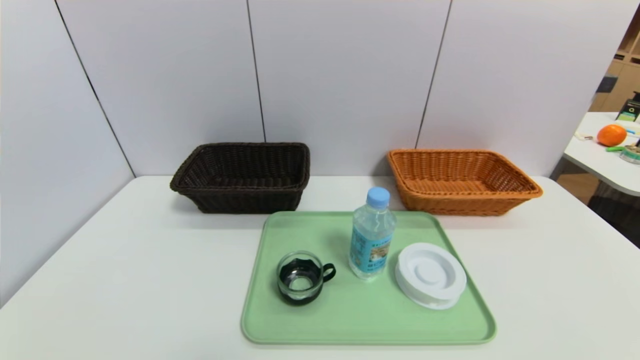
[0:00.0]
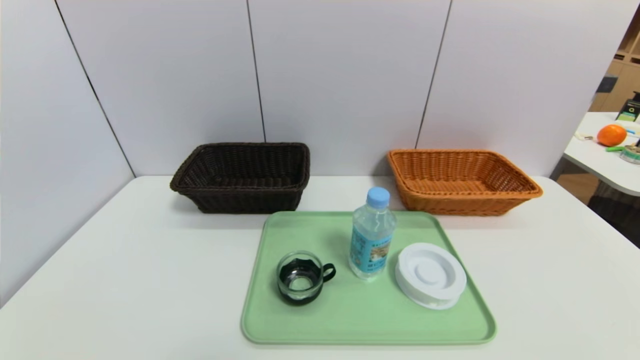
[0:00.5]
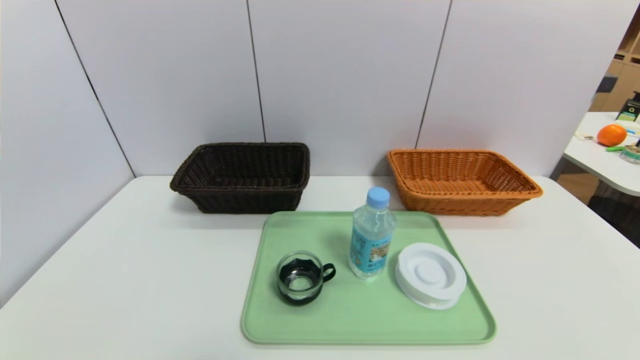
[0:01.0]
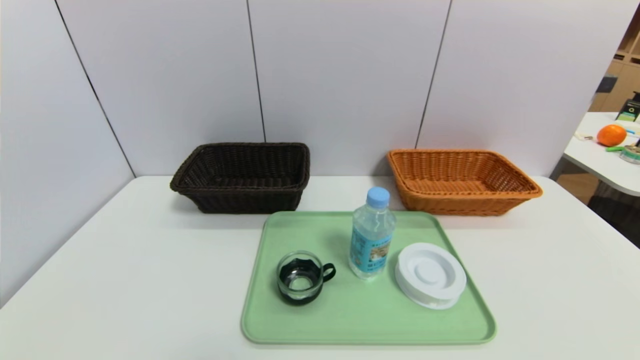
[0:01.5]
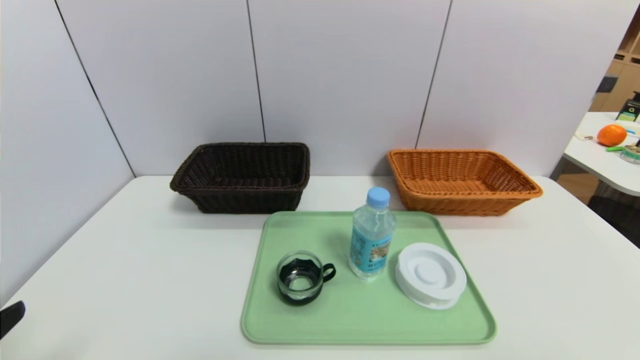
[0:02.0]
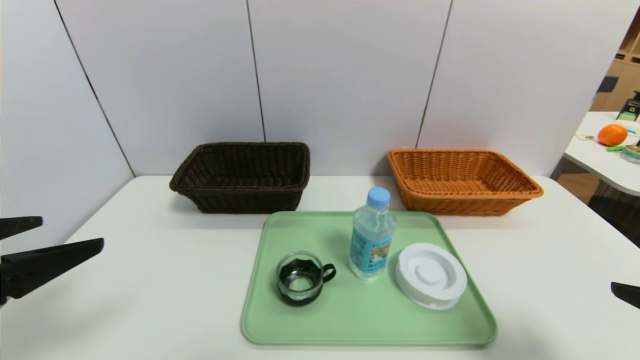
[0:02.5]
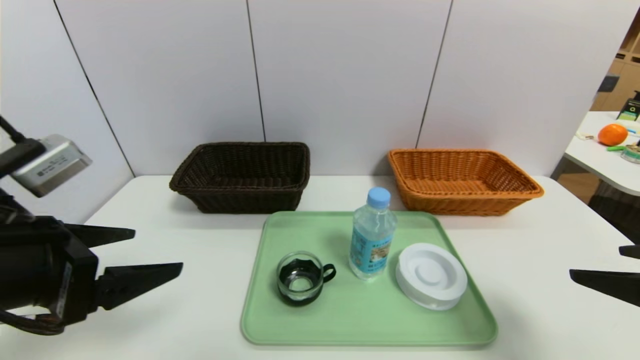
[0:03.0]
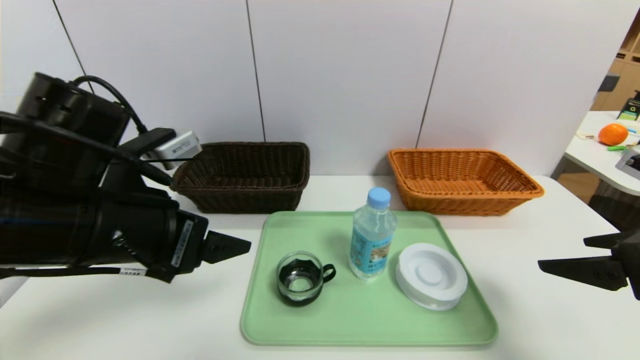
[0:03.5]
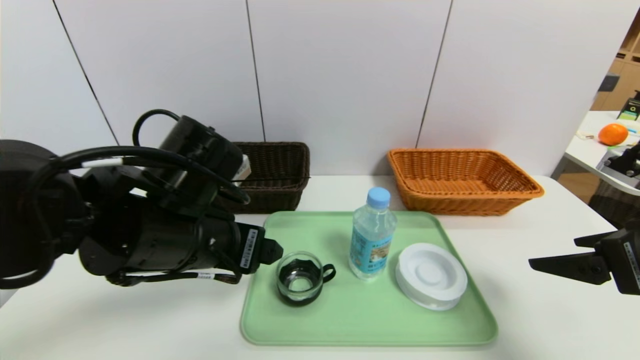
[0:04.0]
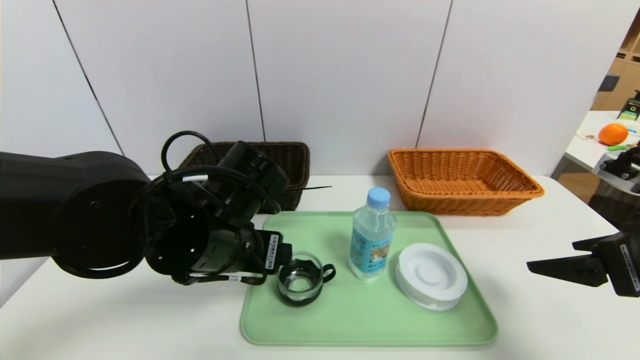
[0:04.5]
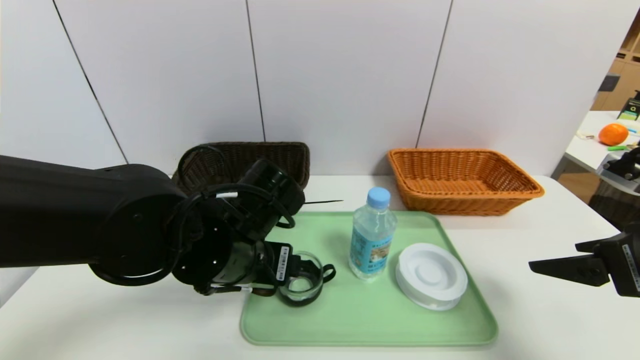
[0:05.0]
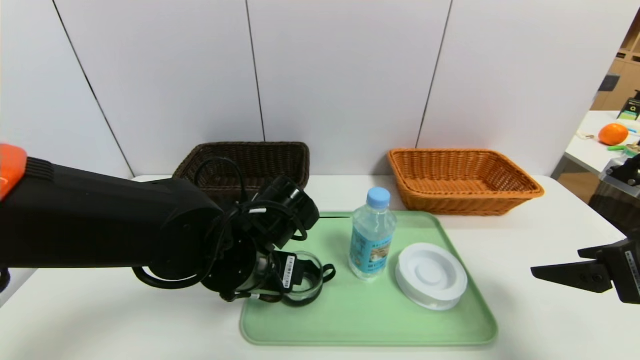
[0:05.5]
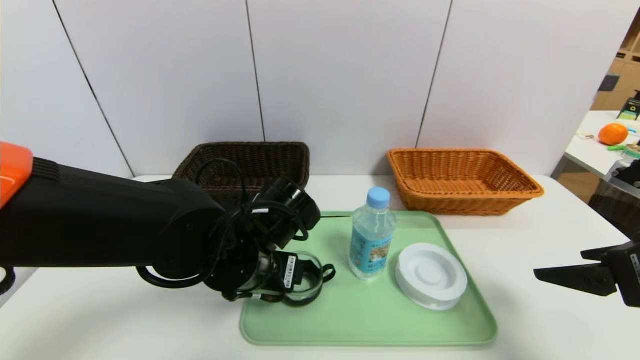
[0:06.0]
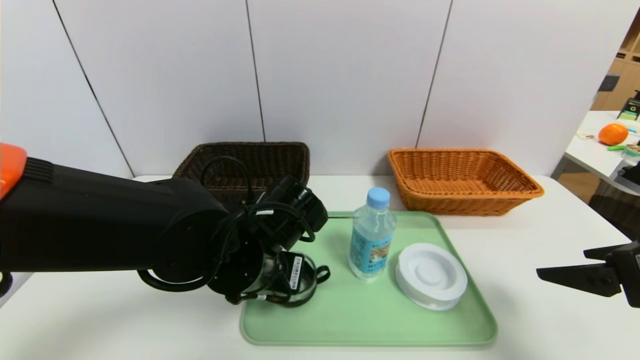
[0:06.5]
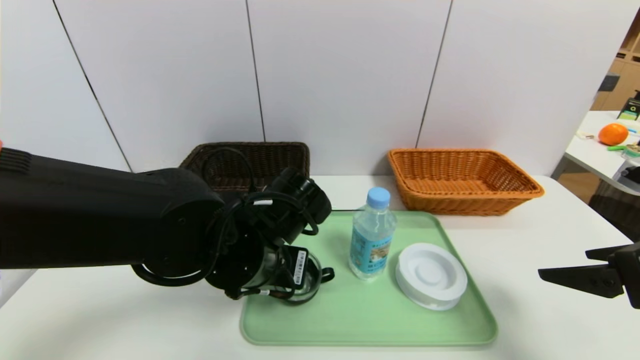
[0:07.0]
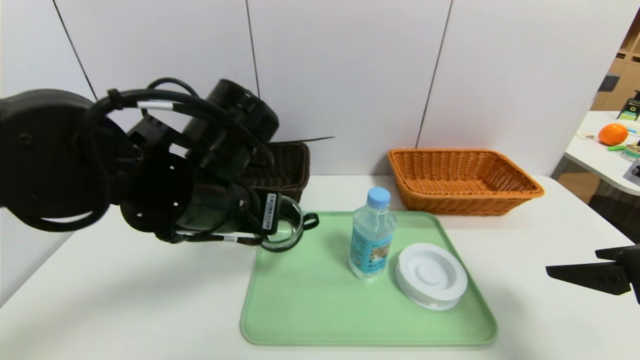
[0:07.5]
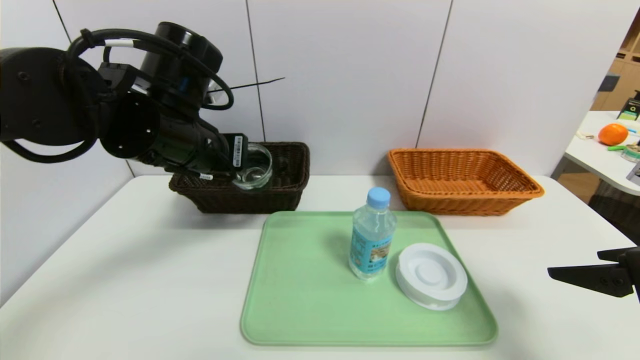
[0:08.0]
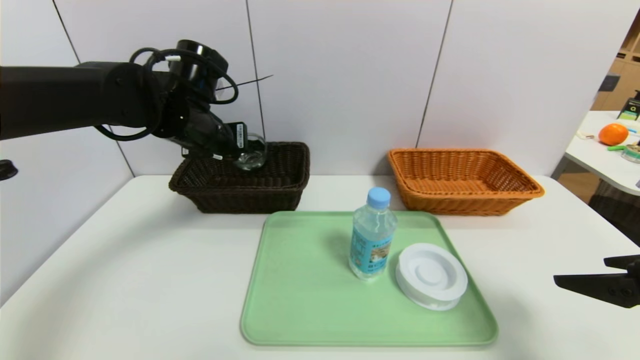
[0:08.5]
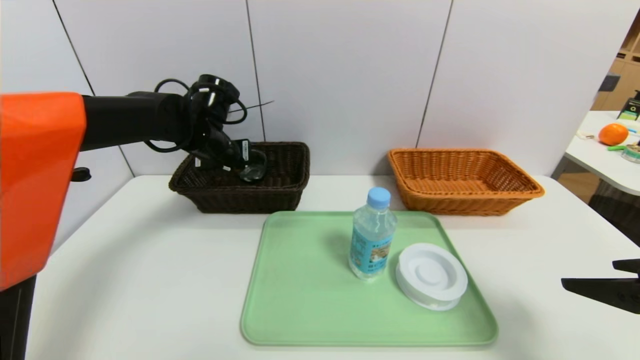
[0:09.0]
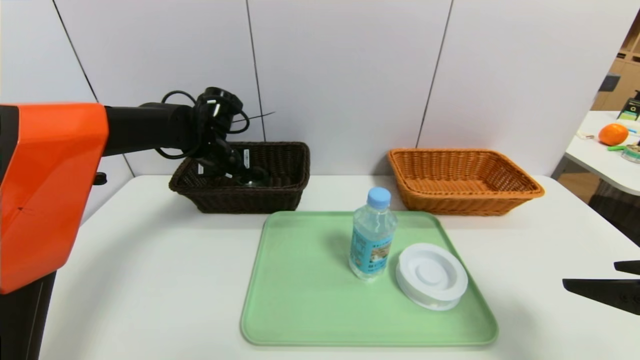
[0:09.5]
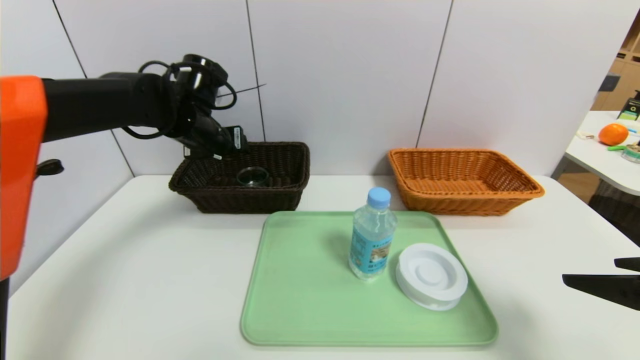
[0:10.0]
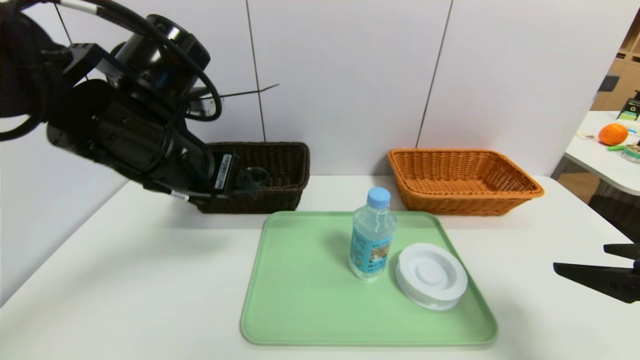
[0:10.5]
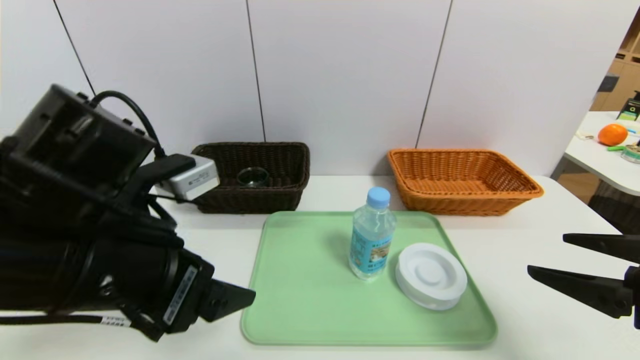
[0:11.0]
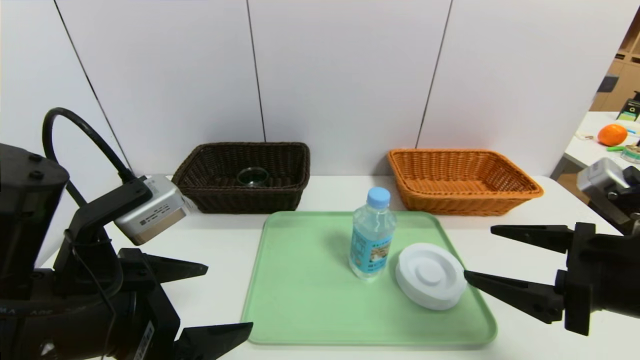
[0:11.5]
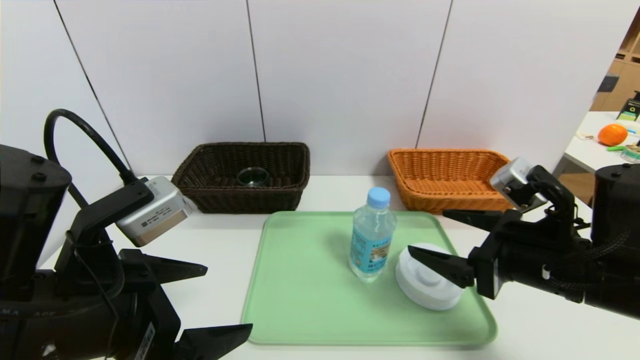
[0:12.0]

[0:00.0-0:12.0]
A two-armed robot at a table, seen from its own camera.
Task of the whole recording: place the food in the right basket with the right gripper, and place the non food items in the left basket with the left gripper.
Step, 0:00.0 to 0:09.5: Grasp the tea cup and put it in the left basket.
0:02.0 to 0:04.0: The right gripper is displaced forward by roughly 15 cm; the left gripper moves forward and to the right, roughly 25 cm.
0:04.0 to 0:06.0: The left gripper shifts some 5 cm downward.
0:06.0 to 0:08.0: The left gripper moves upward, to the left and forward, about 15 cm, and closes up.
0:08.0 to 0:10.0: The left gripper goes some 10 cm forward, and opens.
0:10.0 to 0:12.0: The right gripper is displaced to the left, forward and downward by about 15 cm. The left gripper travels backward by approximately 30 cm.

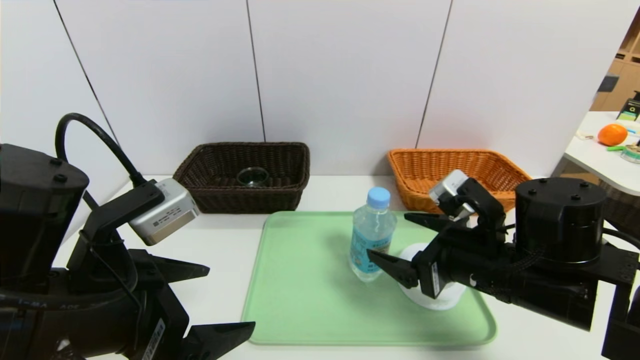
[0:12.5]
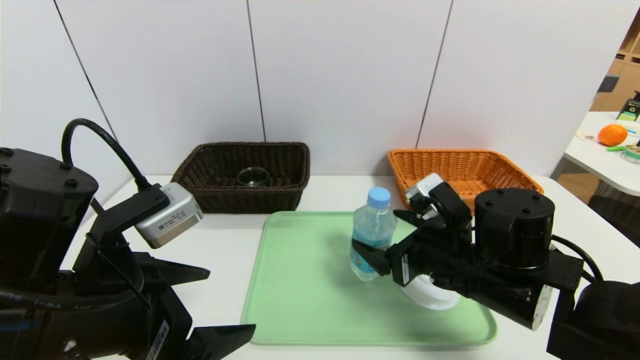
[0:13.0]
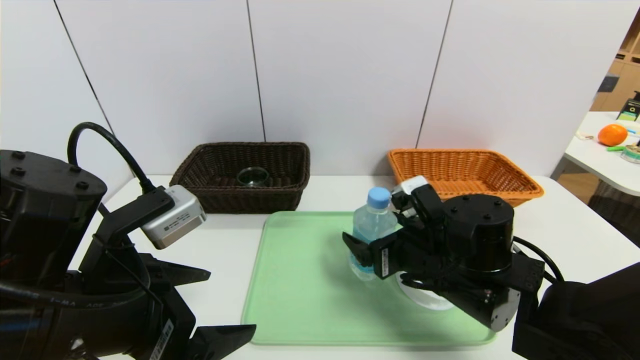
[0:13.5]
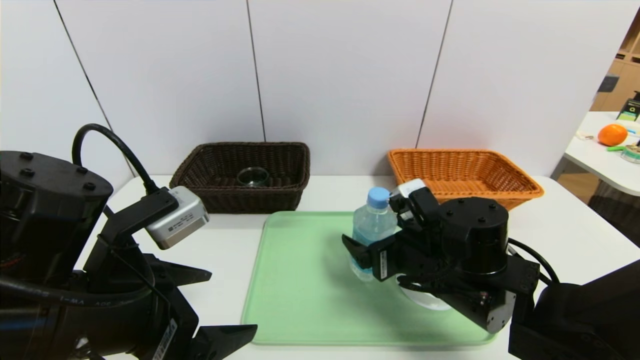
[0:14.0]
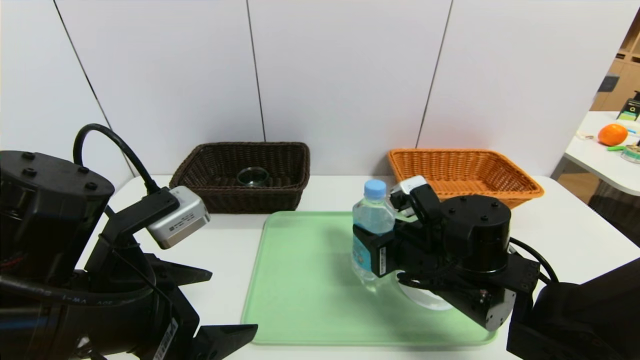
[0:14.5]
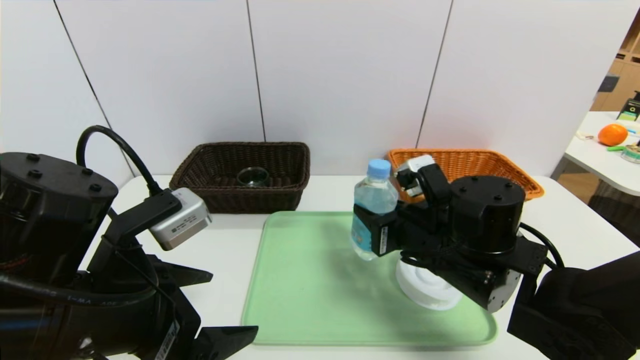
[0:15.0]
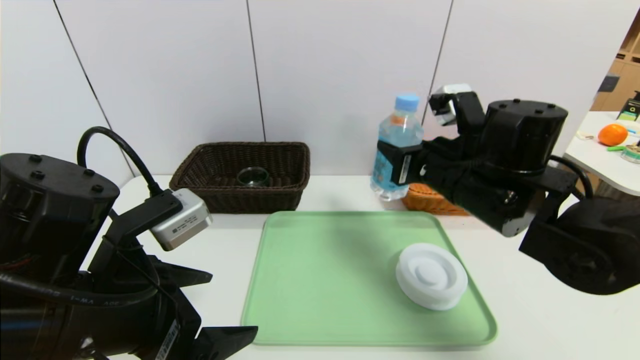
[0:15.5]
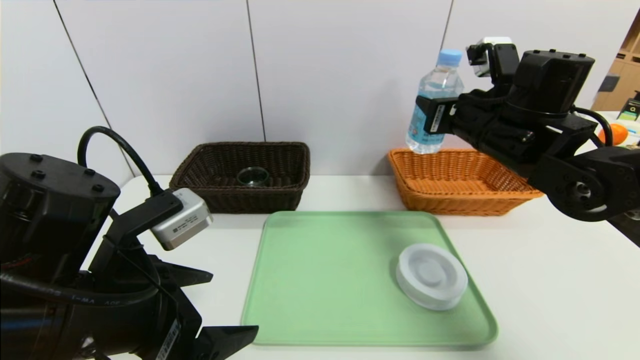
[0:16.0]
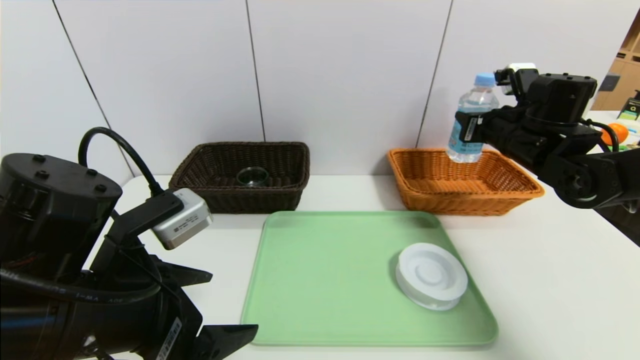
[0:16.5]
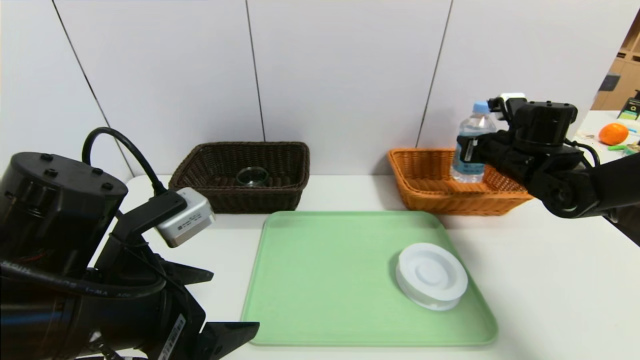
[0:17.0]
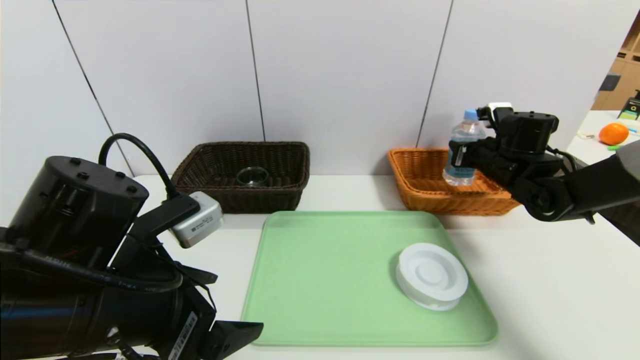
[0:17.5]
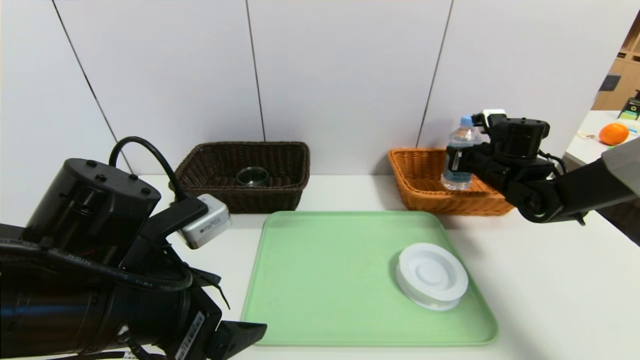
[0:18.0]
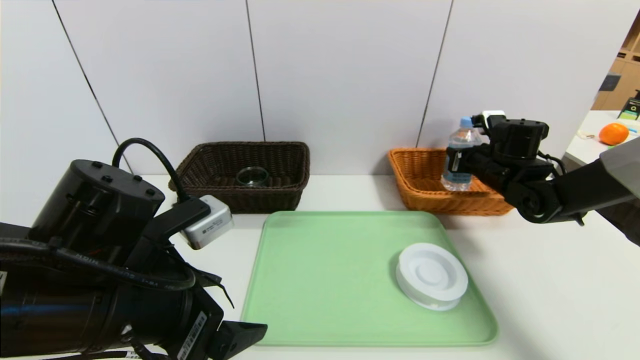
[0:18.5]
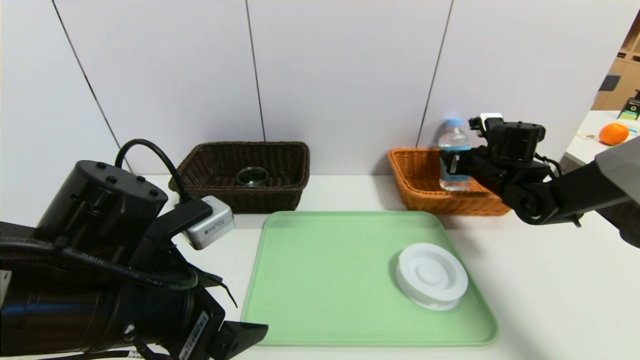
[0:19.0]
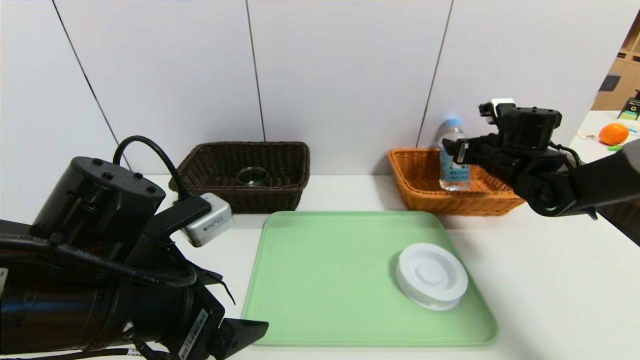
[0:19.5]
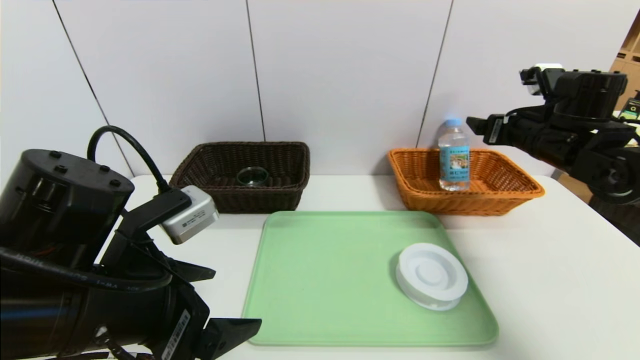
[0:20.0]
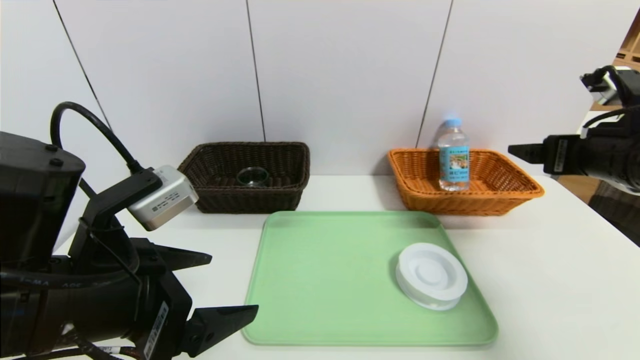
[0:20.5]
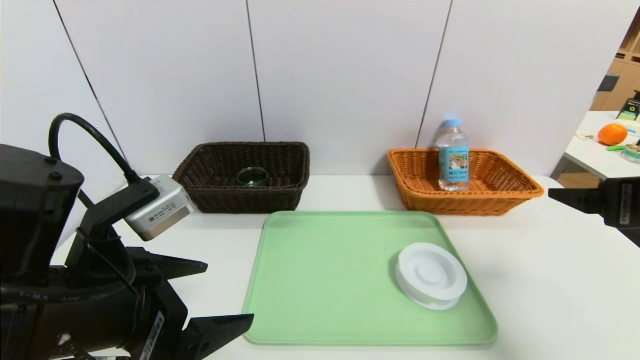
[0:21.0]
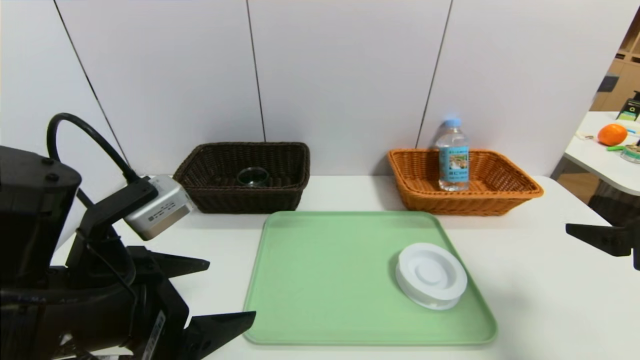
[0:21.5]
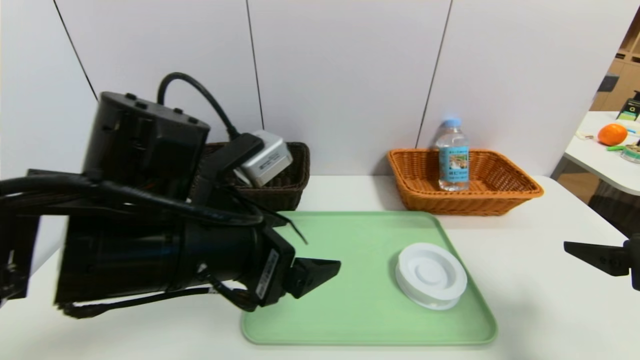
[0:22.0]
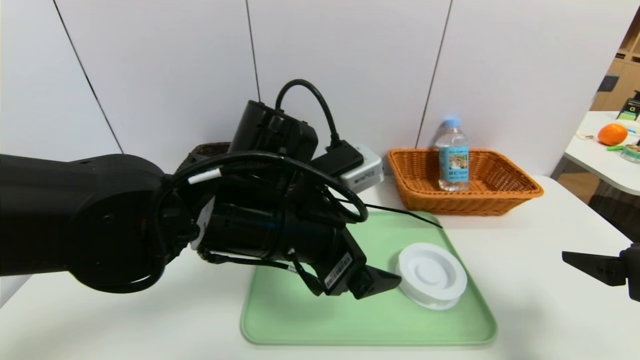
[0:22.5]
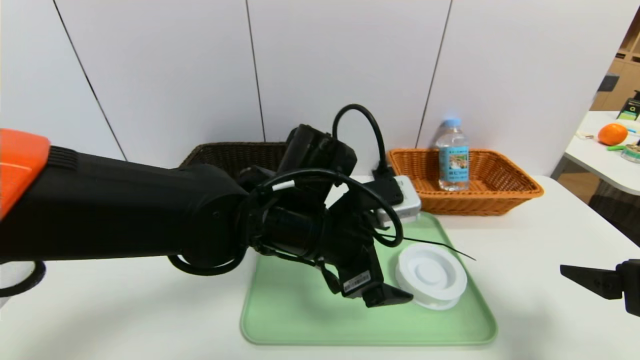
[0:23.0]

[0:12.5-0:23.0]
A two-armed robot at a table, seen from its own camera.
Task of the whole recording: place the food in the right basket with the right gripper, and place the non food items in the left basket with the left gripper.
0:12.5 to 0:14.5: The right gripper shifts by about 5 cm, and closes.
0:14.5 to 0:16.5: The right gripper goes about 25 cm to the right, forward and upward.
0:16.5 to 0:19.0: The right gripper moves downward and forward, about 10 cm, and opens its fingers.
0:19.0 to 0:21.0: The right gripper travels backward and upward by approximately 30 cm, and opens.
0:21.0 to 0:23.0: The right gripper shifts by about 5 cm; the left gripper is displaced to the right and forward by some 20 cm.
